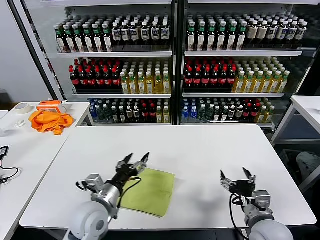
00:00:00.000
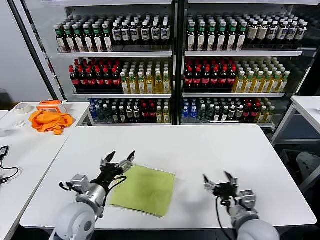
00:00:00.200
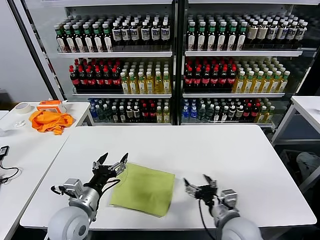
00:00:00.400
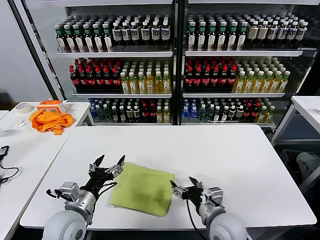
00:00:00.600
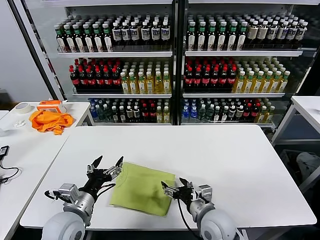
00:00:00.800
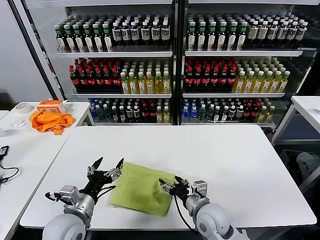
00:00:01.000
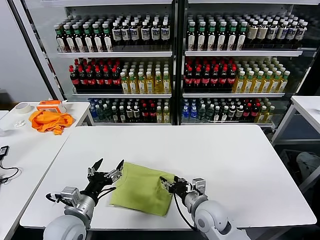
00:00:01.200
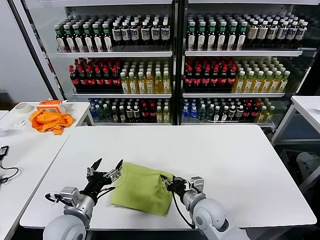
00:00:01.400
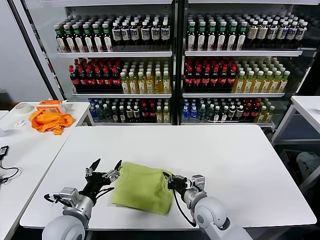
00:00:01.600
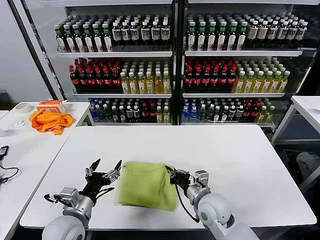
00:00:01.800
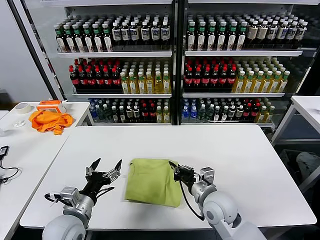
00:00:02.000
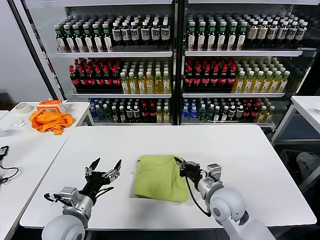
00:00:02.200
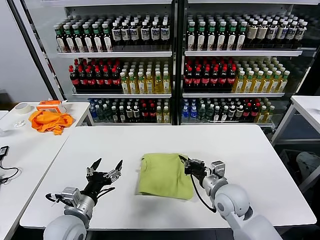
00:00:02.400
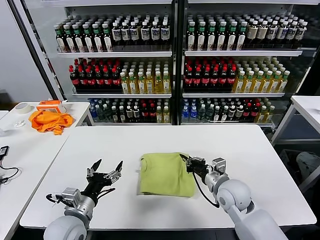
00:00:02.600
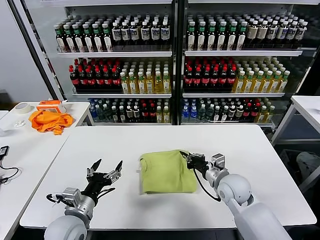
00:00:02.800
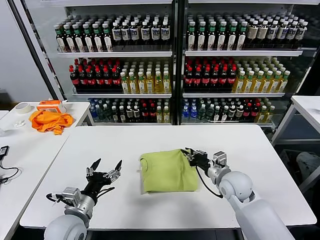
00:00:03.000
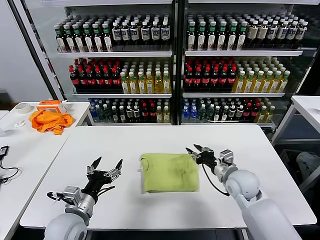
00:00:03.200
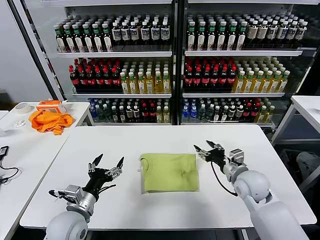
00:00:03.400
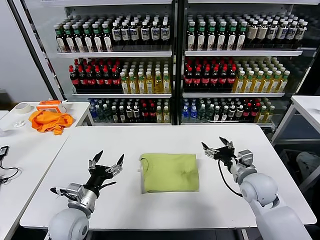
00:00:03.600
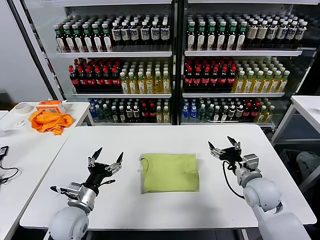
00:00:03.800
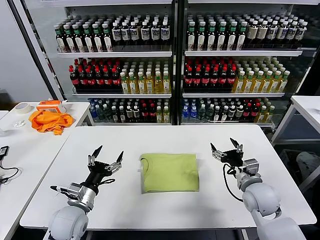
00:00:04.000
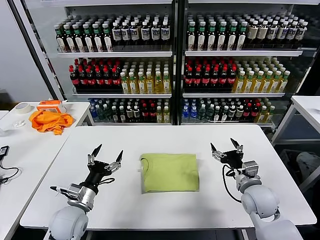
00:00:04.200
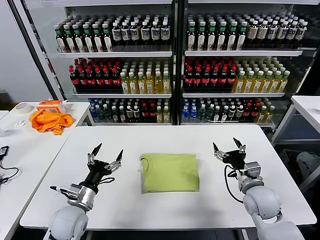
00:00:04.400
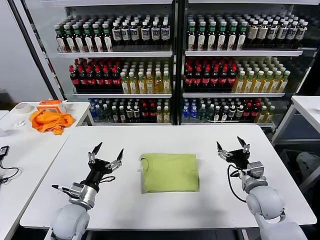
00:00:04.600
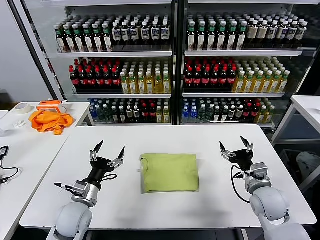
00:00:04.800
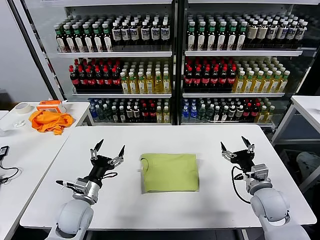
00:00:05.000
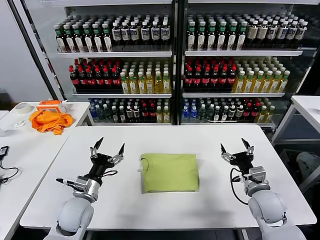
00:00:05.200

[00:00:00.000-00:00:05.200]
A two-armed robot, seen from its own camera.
Task of the whole recording: fold and organize the clothes.
Step, 00:00:00.000 to 00:00:03.000: Drag the clothes to the center of the table.
00:00:00.000 to 00:00:01.800: The right gripper travels to the left and forward by about 15 cm, and closes. The left gripper moves to the left, roughly 5 cm.
00:00:01.800 to 00:00:03.400: The right gripper moves to the right and forward, about 15 cm, and opens its fingers.
00:00:03.400 to 00:00:05.200: The left gripper moves forward, roughly 5 cm. Meanwhile the right gripper moves backward, about 5 cm, and opens its fingers.
